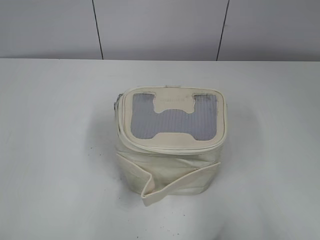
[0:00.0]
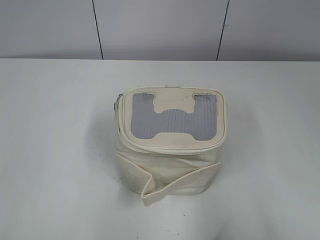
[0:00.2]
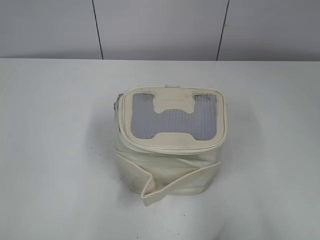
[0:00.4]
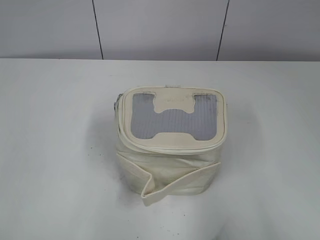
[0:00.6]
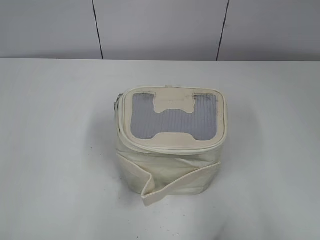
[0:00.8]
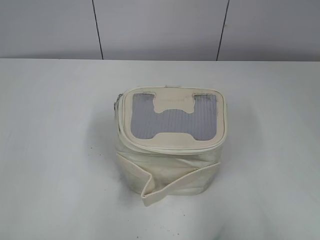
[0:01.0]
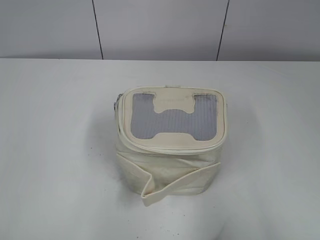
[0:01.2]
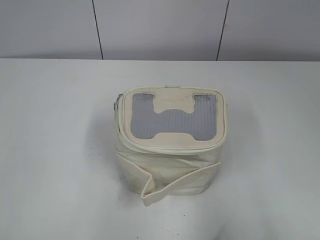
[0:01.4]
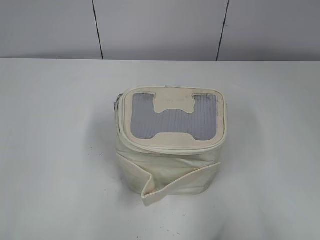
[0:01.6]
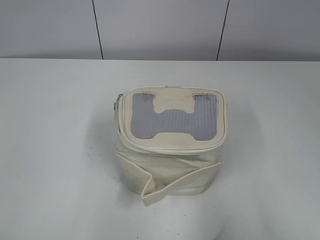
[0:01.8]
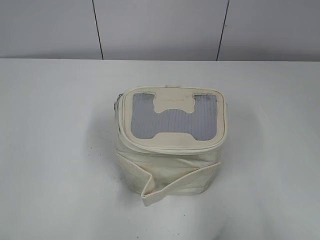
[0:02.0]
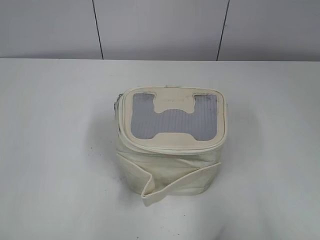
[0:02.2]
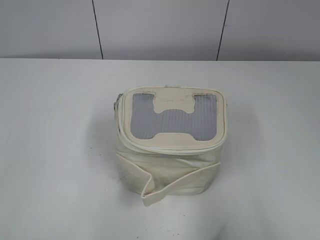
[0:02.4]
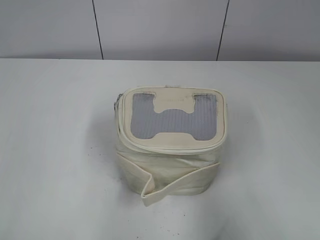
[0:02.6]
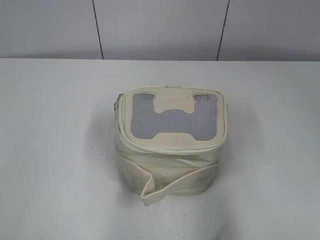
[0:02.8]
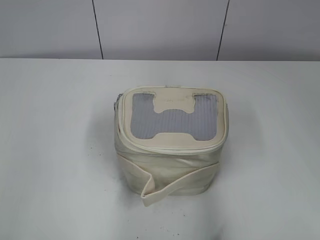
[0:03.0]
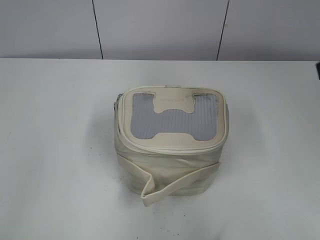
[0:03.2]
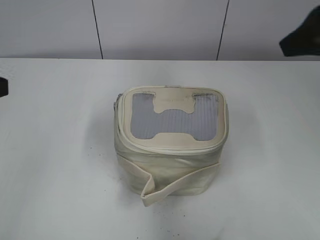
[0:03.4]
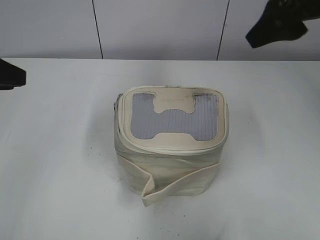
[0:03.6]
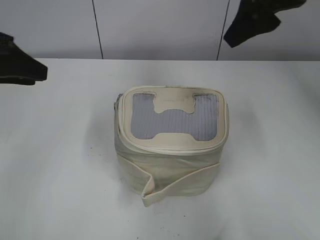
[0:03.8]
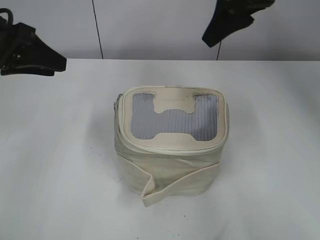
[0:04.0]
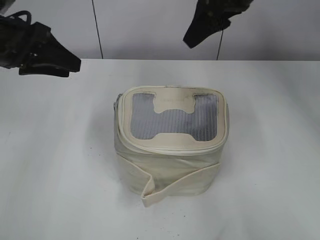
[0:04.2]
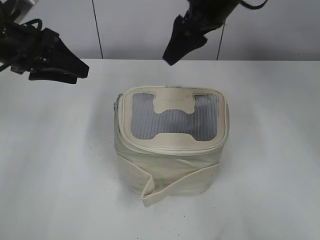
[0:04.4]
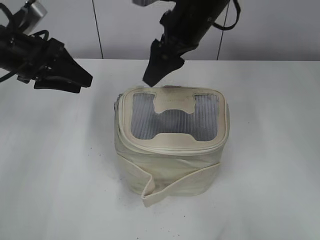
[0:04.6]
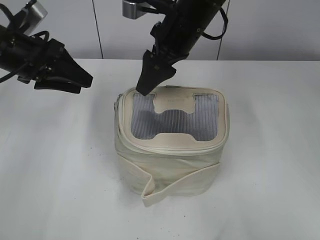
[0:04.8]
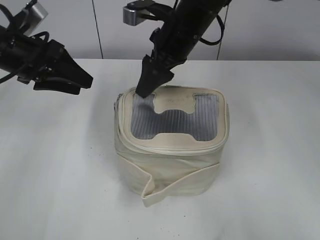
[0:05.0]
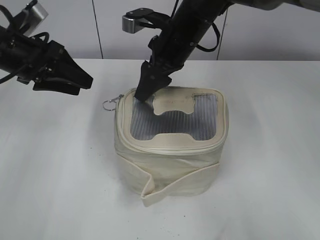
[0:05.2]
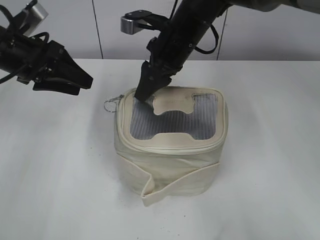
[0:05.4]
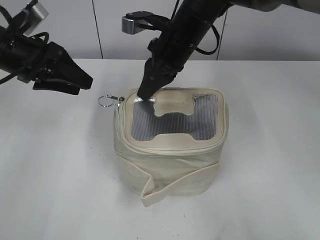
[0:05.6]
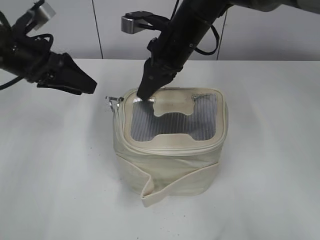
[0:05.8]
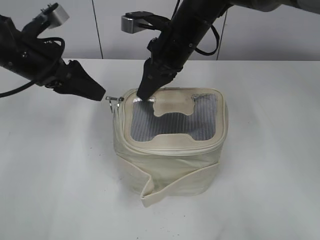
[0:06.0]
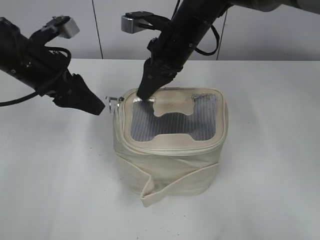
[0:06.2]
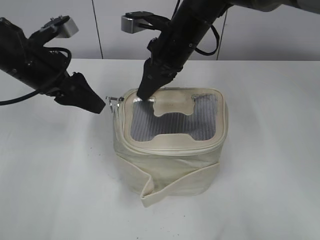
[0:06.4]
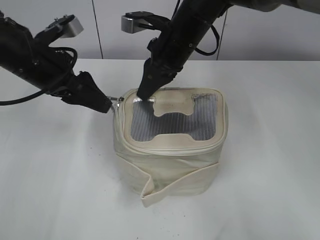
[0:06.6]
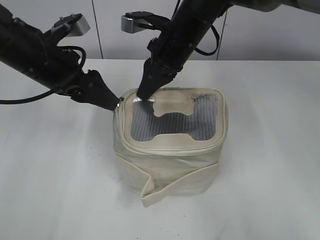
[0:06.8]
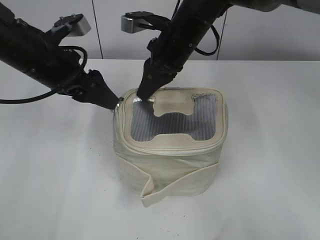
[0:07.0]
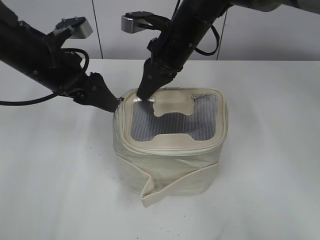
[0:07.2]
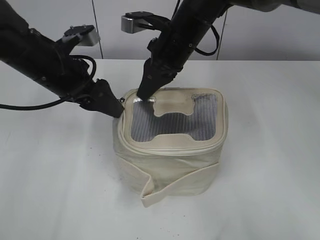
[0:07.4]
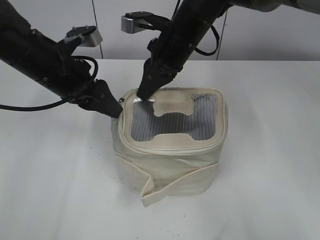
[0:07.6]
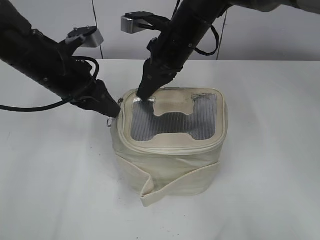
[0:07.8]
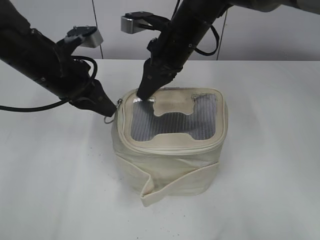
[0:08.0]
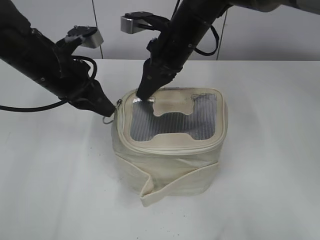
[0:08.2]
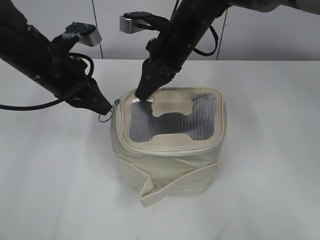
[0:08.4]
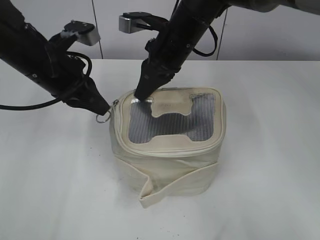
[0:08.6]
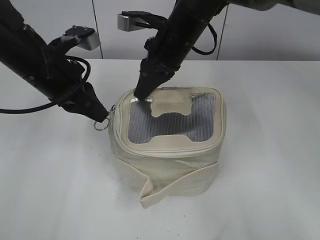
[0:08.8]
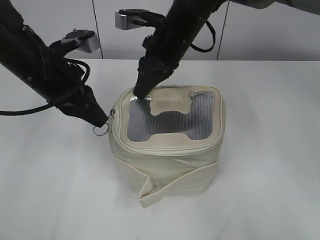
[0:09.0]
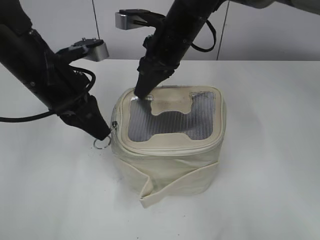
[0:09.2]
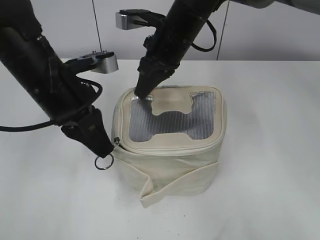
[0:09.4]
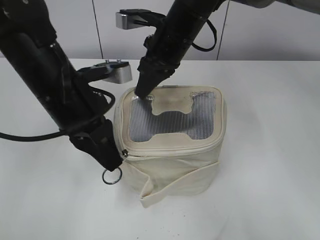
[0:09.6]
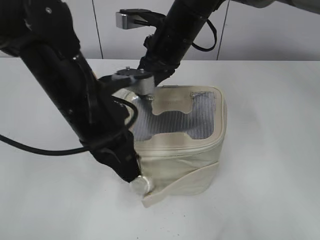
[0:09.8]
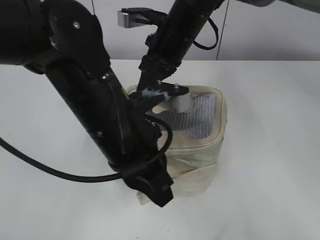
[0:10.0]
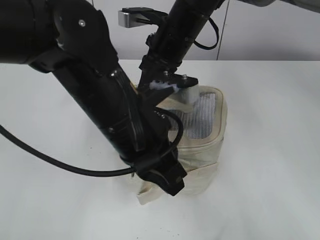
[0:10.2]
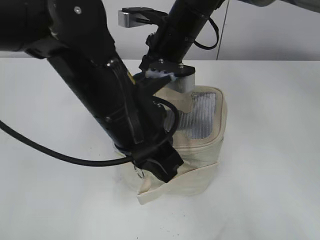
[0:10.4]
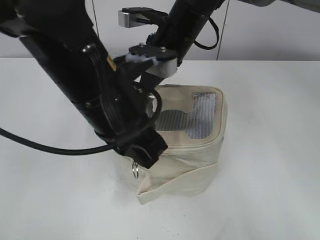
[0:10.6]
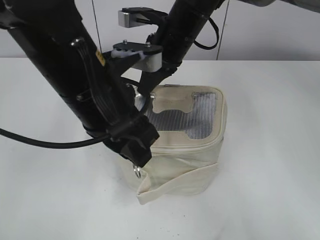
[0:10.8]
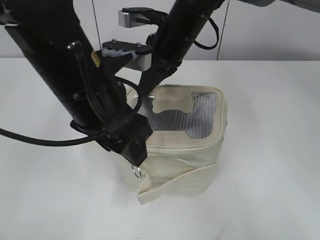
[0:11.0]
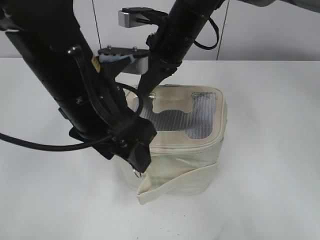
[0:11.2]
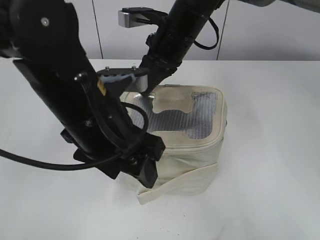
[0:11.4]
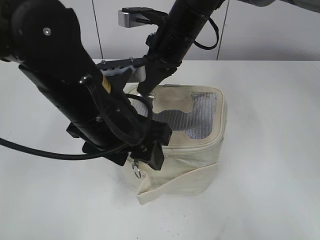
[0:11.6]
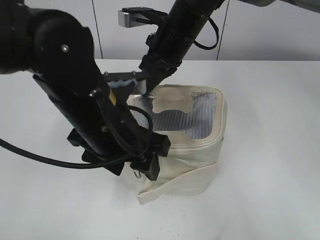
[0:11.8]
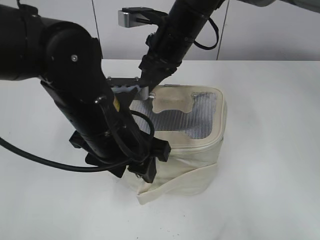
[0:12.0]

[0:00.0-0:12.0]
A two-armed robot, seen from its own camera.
0:01.6 to 0:03.0: Both grippers travel together forward, roughly 10 cm.
0:03.0 to 0:04.4: The right gripper travels forward and to the left by roughly 35 cm; the left gripper travels forward by approximately 25 cm.
0:04.4 to 0:06.0: The right gripper goes roughly 10 cm downward and to the left, and closes.
0:06.0 to 0:07.6: The left gripper ends up roughly 5 cm from where it was.
0:07.6 to 0:09.0: The left gripper closes up.
0:09.0 to 0:10.4: The left gripper is displaced to the right and backward by some 15 cm.
0:10.4 to 0:12.0: The left gripper opens.

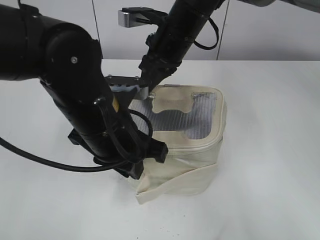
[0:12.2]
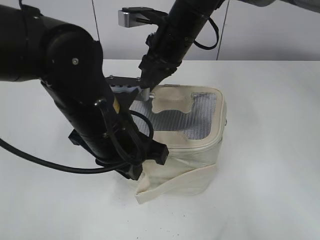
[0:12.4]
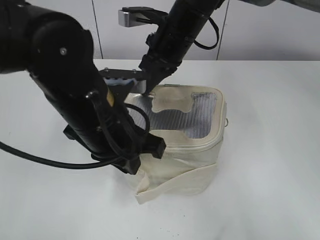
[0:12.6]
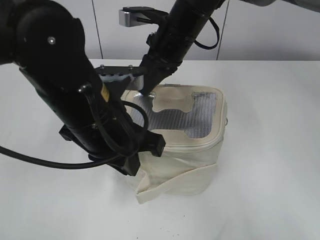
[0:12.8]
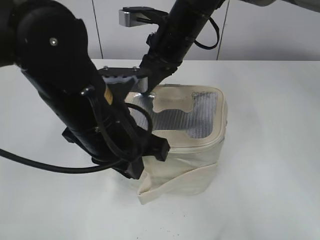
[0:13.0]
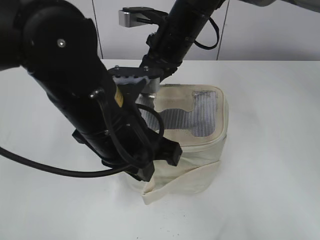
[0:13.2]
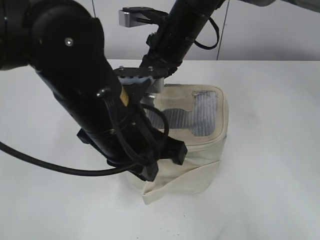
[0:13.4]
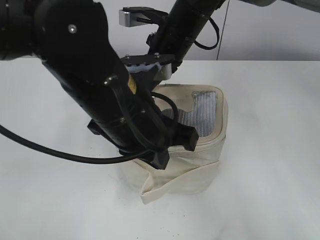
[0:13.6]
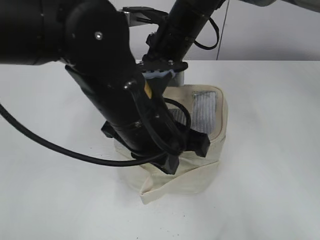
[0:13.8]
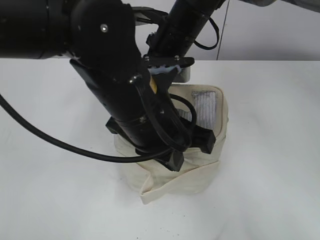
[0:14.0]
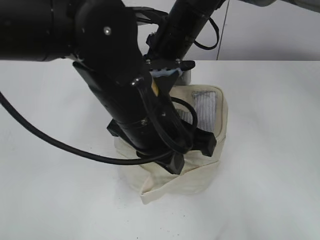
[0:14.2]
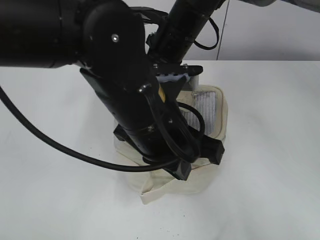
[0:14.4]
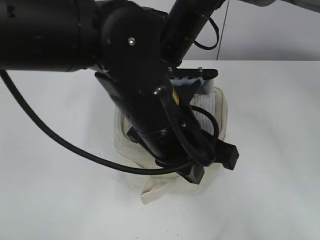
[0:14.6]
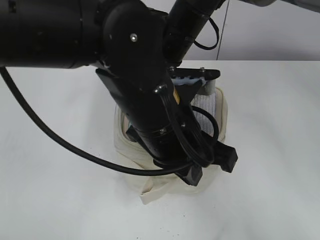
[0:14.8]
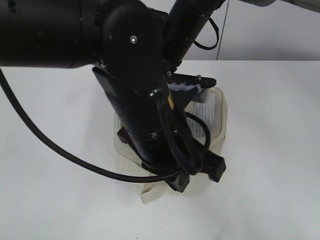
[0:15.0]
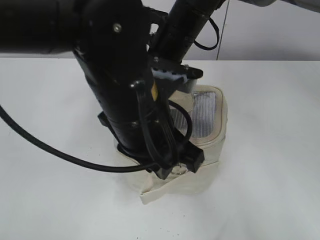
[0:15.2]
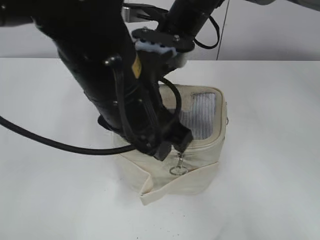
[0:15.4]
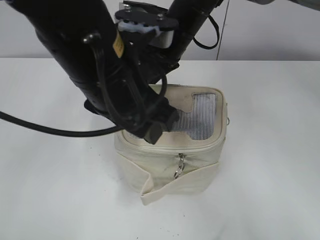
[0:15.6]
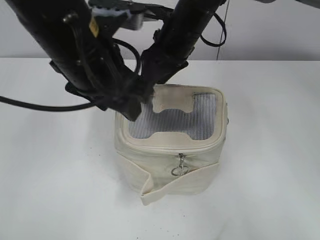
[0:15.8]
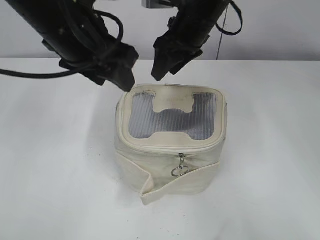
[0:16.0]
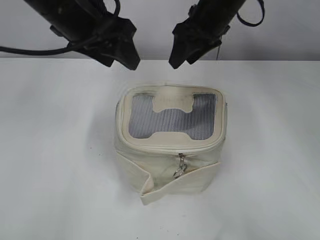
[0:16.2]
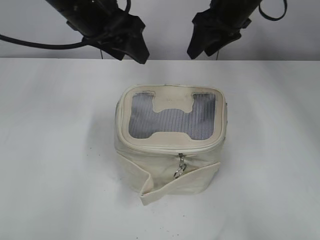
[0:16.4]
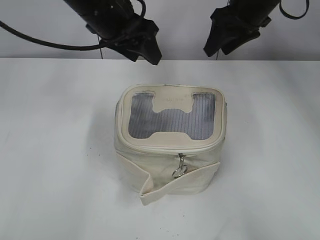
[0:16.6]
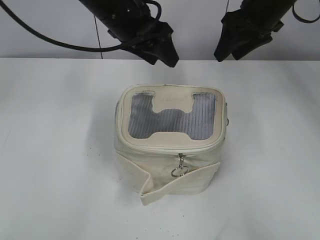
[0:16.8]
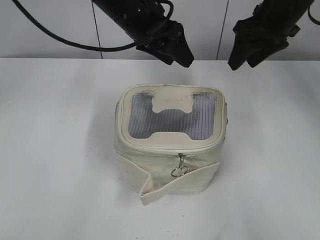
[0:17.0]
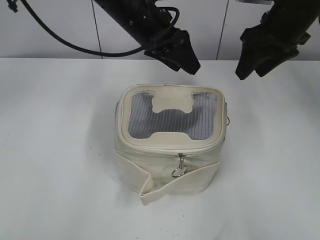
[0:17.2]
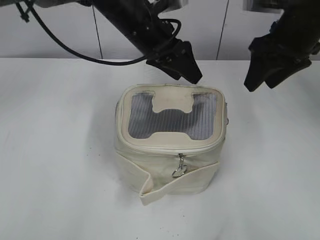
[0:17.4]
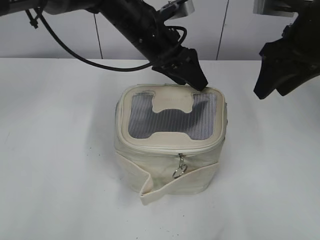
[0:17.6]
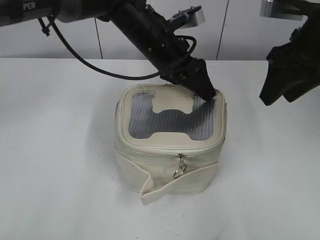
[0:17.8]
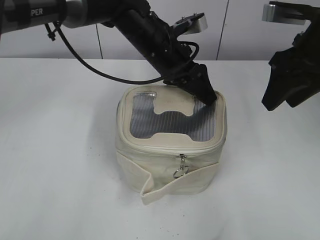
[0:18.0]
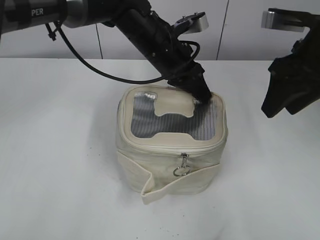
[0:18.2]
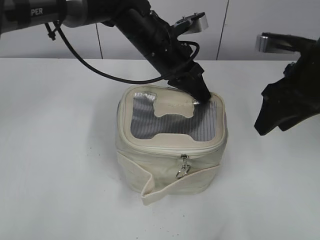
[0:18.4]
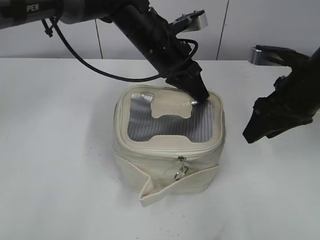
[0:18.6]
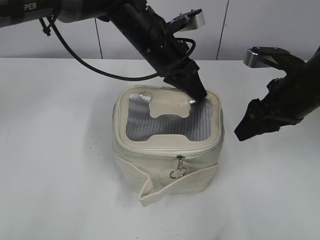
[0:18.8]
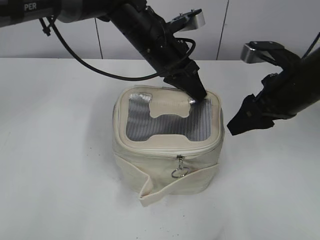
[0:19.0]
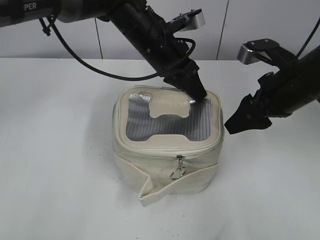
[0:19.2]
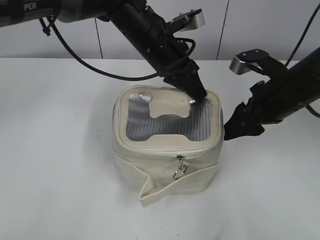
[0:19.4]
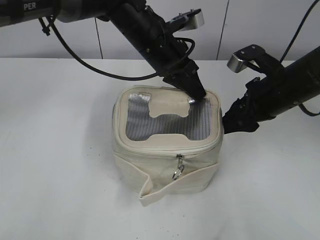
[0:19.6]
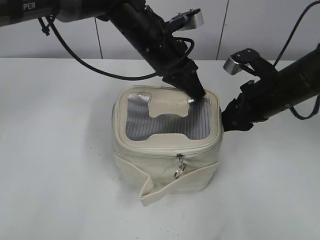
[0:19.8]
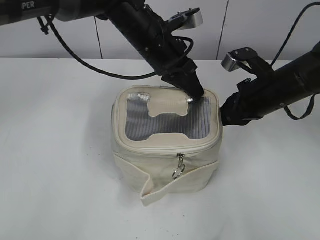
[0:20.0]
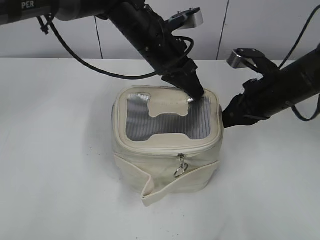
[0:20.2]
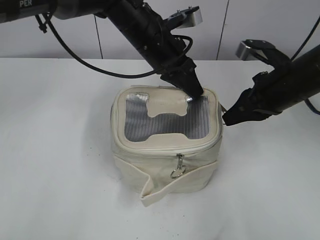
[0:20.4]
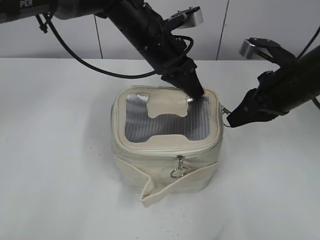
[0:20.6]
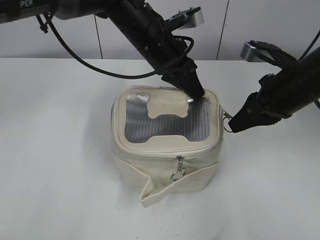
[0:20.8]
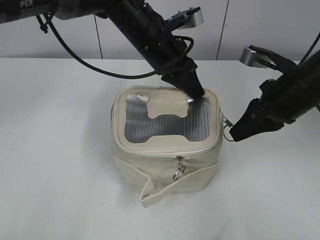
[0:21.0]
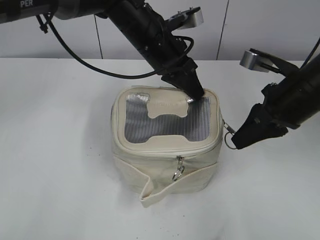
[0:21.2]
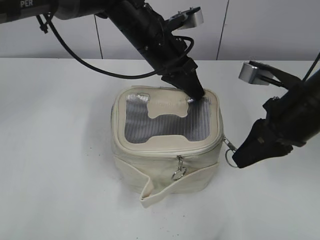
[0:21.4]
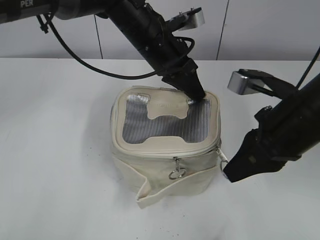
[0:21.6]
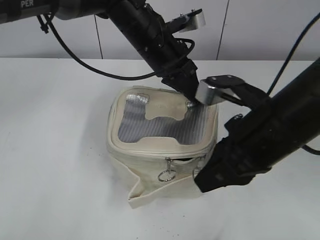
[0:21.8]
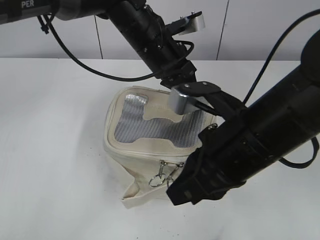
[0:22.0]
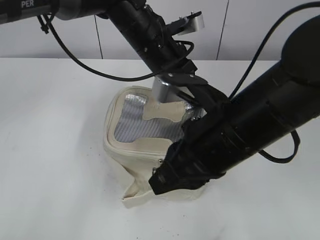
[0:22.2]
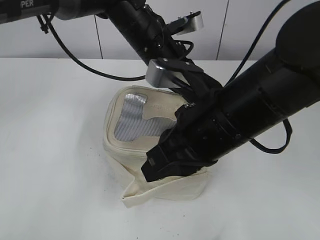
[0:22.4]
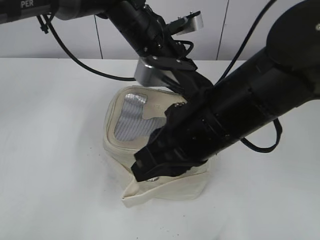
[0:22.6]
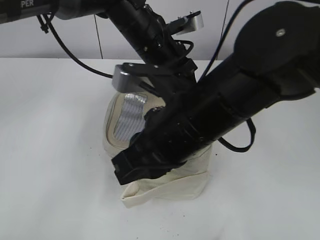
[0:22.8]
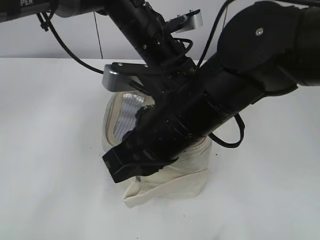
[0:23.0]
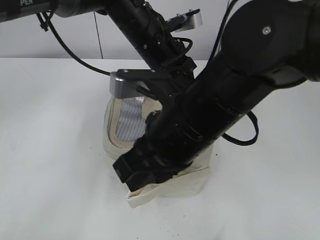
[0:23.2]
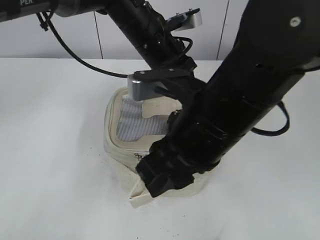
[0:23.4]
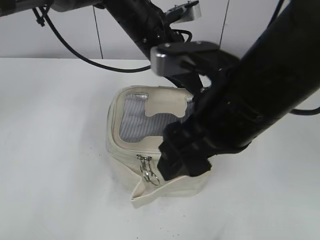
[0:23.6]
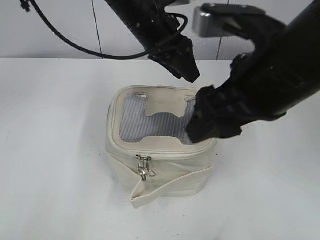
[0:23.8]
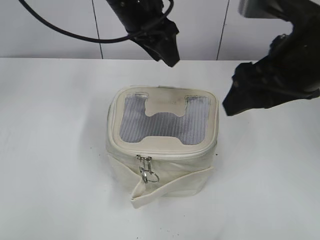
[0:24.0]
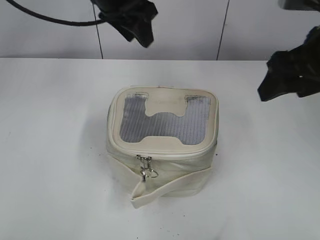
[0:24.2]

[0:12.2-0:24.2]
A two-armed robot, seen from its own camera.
Step, 0:12.2 to 0:15.2: Zip up the bag with your left hand.
Step, 0:15.4 to 0:15.8: Hold the bag with your right hand.
Step, 0:16.0 to 0:23.4: Zip up the bag with your right hand.
0:12.2 to 0:13.8: The left gripper shifts by some 5 cm.
0:13.8 to 0:15.2: The grippers make only small movements.
0:15.2 to 0:16.6: The left gripper heads forward, covering roughly 15 cm, and opens its fingers; the right gripper shifts approximately 15 cm to the right, and opens up.
0:16.6 to 0:18.2: The right gripper is displaced backward and to the right by roughly 15 cm. The left gripper heads to the right and downward, covering roughly 10 cm, and closes its fingers.
0:18.2 to 0:19.8: The right gripper heads downward, covering approximately 10 cm.
0:19.8 to 0:21.2: The right gripper shifts by approximately 5 cm, and closes up.
0:21.2 to 0:22.6: The right gripper travels to the left and backward by about 15 cm.
0:22.6 to 0:24.2: The left gripper moves upward and to the left, approximately 10 cm, and opens up. Meanwhile the right gripper travels to the right, upward and forward by roughly 15 cm, and opens.
